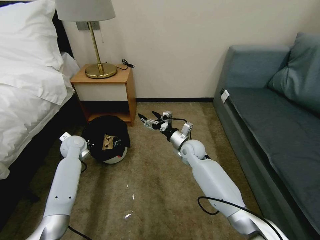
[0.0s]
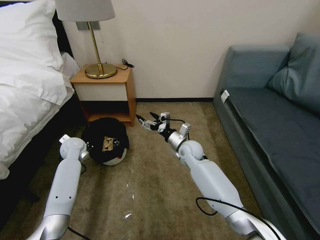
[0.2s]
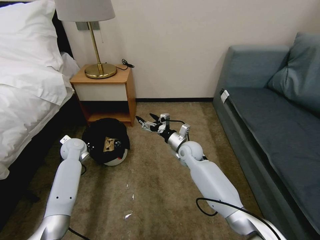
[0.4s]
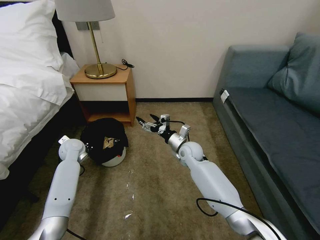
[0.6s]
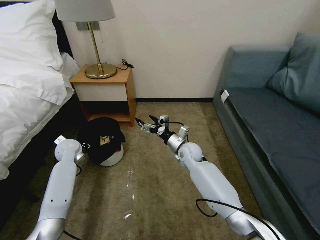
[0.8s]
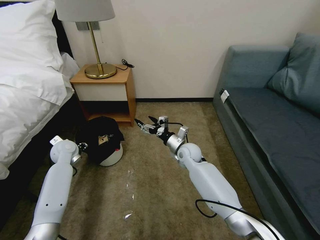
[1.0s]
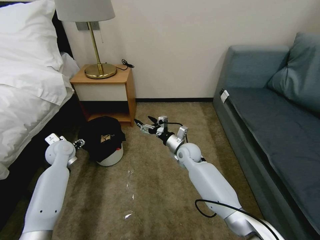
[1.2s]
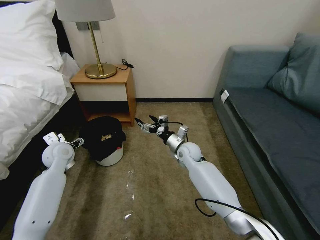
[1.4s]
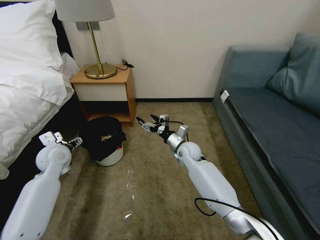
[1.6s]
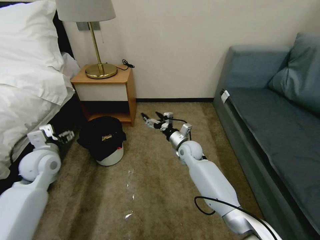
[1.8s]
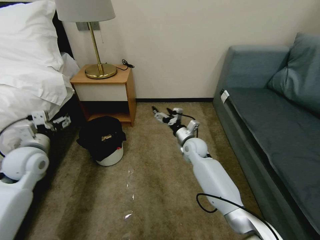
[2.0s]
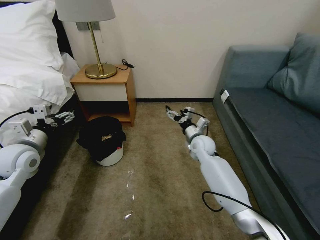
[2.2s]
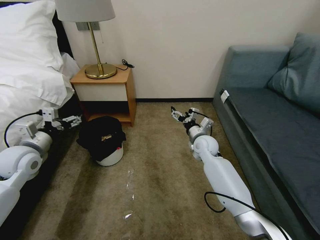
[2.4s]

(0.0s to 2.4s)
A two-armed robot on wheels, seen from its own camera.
Task of the whole recording: Pick up the trash bin, then pick up the garbage on the floor and place it into the trash bin.
0.0s - 1.2s: The left gripper moves roughly 5 cm, and opens.
1.2s - 2.4s: The right gripper goes about 5 cm to the right, while the left gripper goes roughly 15 cm backward and upward.

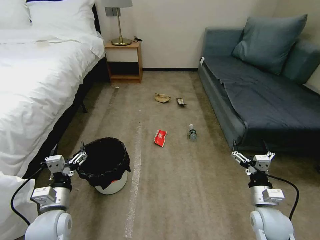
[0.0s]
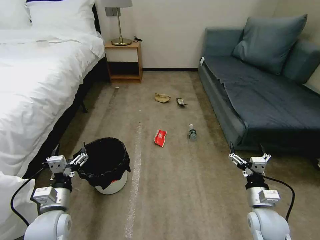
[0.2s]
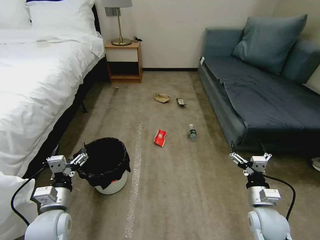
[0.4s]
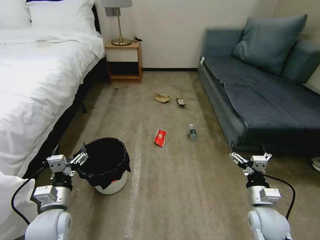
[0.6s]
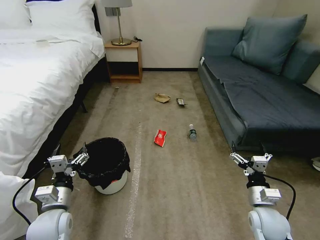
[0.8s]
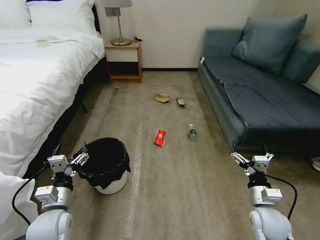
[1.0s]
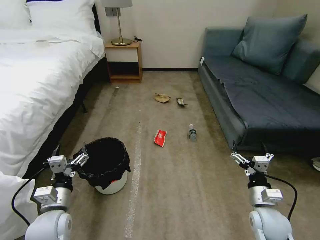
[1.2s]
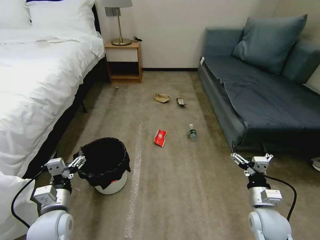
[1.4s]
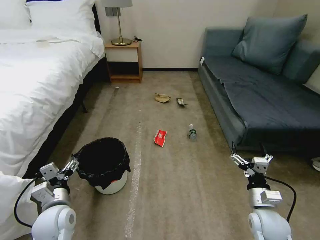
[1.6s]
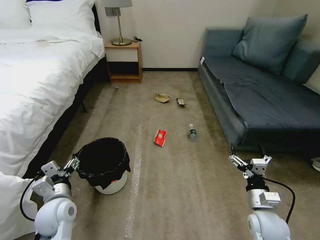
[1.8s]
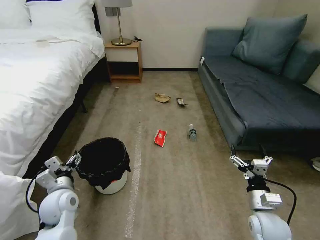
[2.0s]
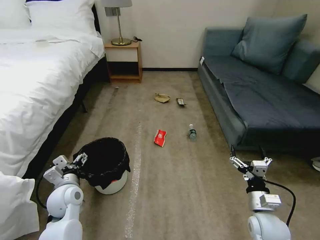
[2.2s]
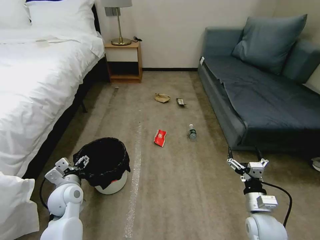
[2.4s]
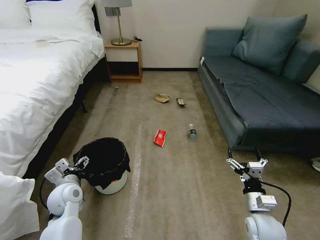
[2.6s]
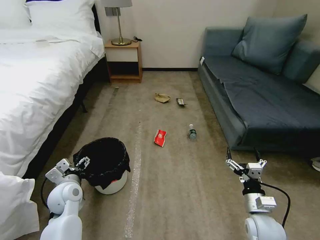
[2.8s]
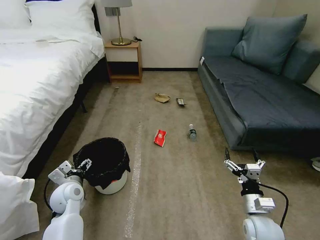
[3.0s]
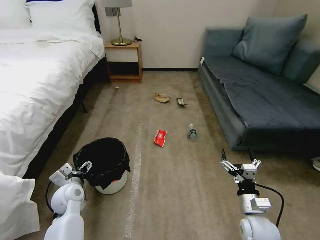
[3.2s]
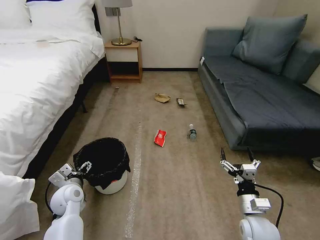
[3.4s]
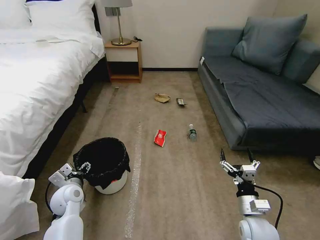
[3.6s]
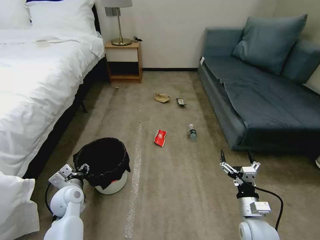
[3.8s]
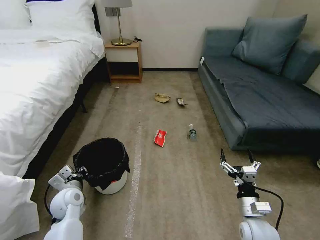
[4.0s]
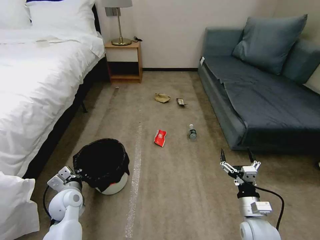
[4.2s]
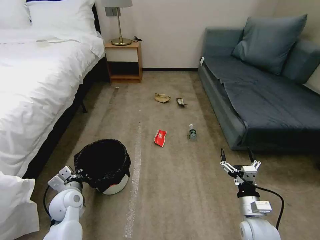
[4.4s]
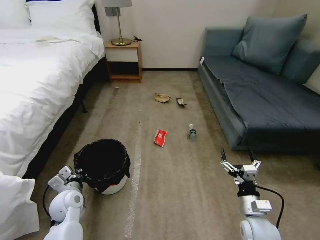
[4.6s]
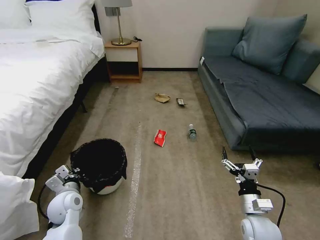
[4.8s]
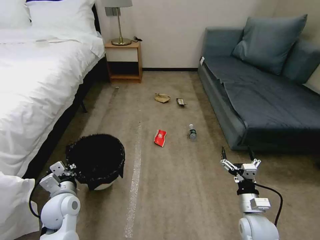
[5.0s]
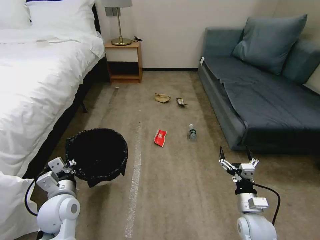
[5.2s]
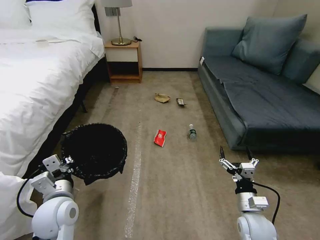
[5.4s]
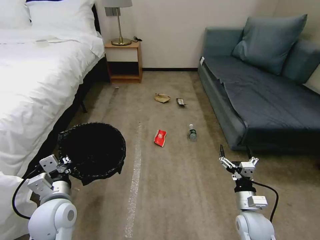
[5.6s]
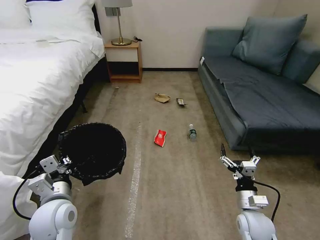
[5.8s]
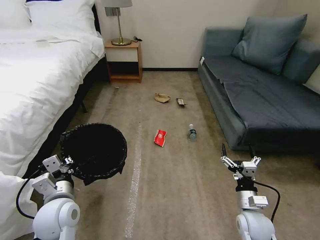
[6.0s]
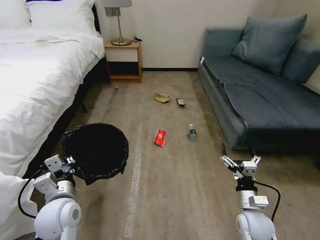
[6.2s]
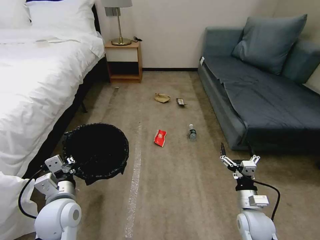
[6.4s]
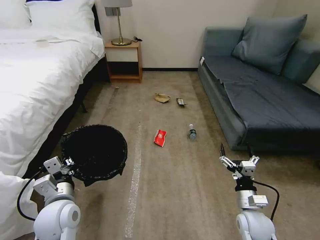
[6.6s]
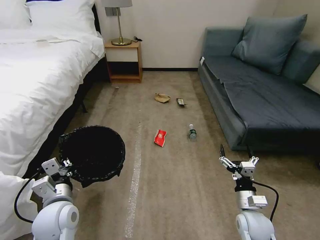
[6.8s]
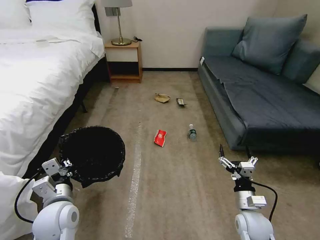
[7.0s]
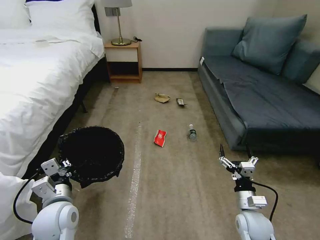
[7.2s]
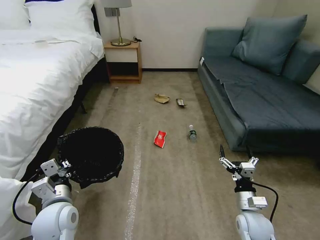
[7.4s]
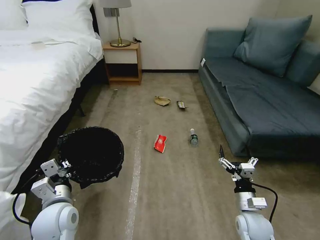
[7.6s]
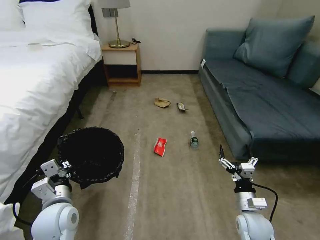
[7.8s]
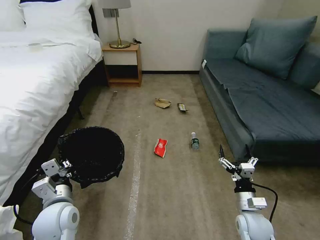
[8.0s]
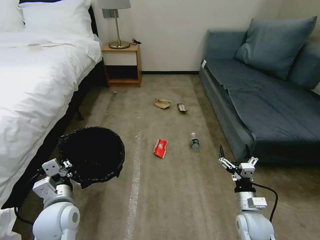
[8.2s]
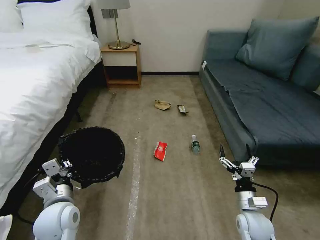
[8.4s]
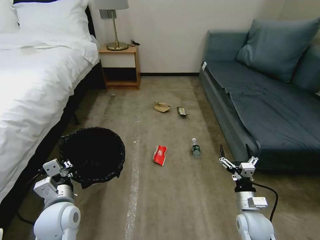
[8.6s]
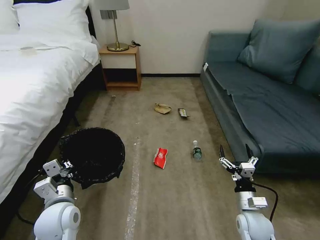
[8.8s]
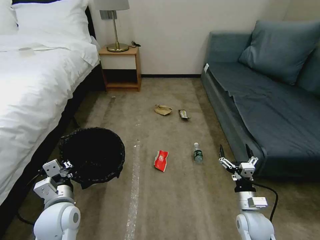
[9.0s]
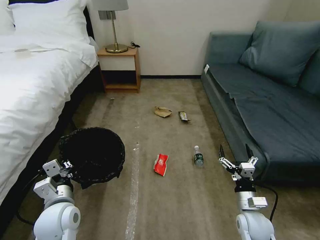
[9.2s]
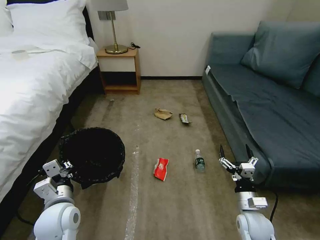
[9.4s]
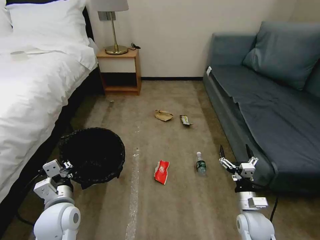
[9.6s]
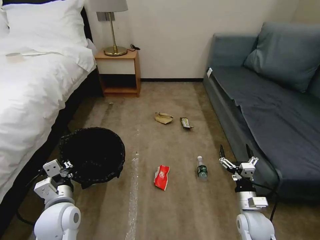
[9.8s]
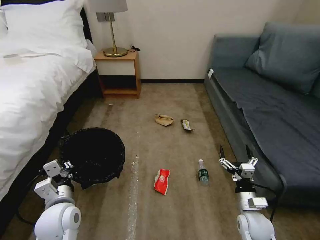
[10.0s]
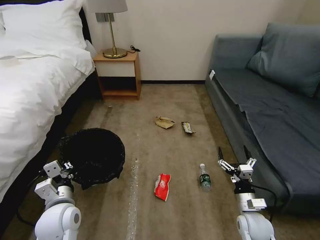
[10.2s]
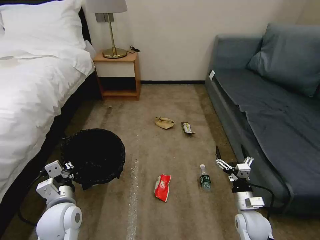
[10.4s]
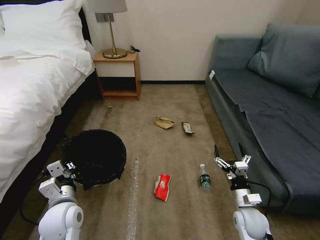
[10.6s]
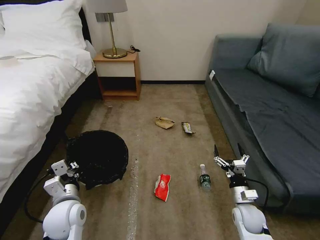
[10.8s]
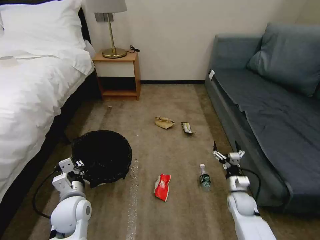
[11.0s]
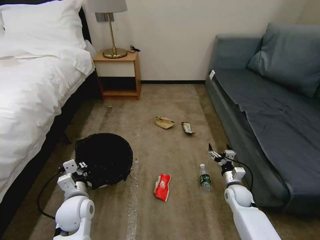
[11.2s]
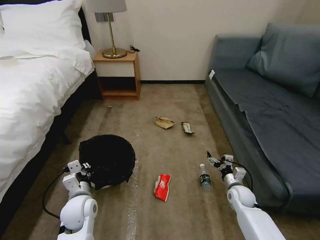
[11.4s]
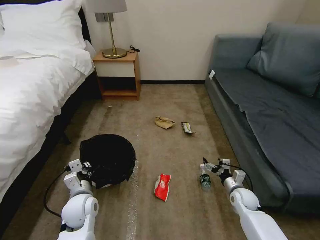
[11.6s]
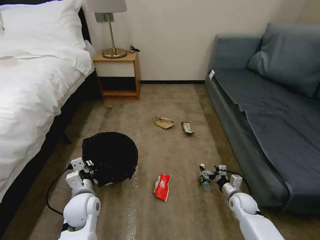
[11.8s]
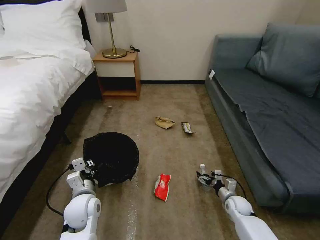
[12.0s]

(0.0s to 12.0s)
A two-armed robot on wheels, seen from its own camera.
Task of the whole recording: Pick up the trash bin, then pick up the garbage on the floor and place it into the trash bin.
1.6s - 3.0s: The left gripper is displaced forward by some 10 cm.
3.0s - 4.4s: The left gripper closes up.
4.4s - 6.0s: The left gripper shifts approximately 10 cm upward and backward.
6.0s - 7.6s: There are only small adjustments of the grippers.
10.4s - 12.0s: The left gripper moves some 5 cm; the right gripper heads downward and forward, covering some 15 cm.

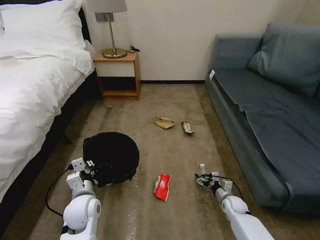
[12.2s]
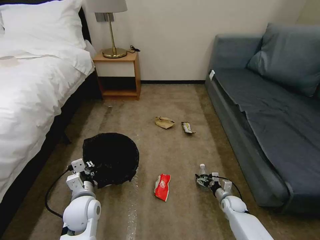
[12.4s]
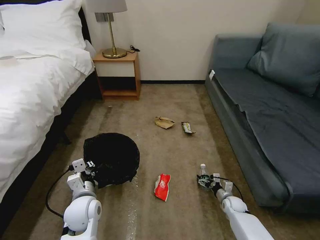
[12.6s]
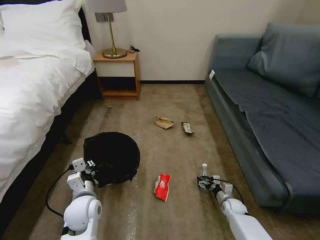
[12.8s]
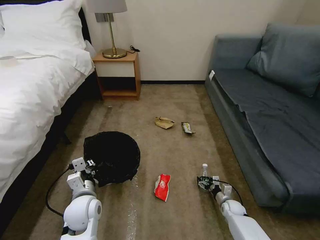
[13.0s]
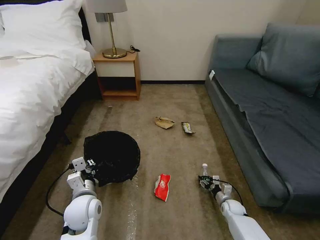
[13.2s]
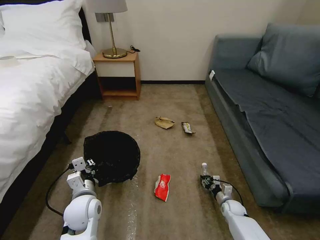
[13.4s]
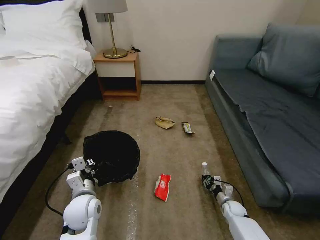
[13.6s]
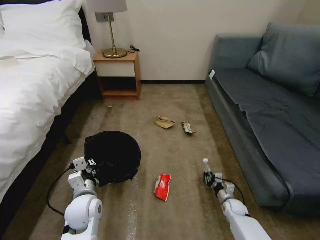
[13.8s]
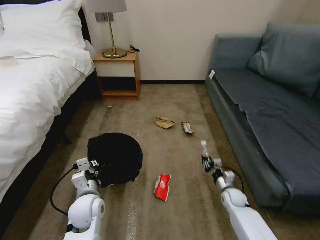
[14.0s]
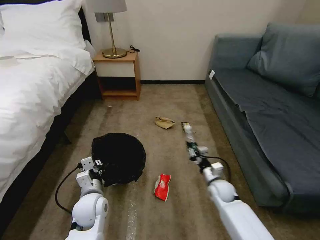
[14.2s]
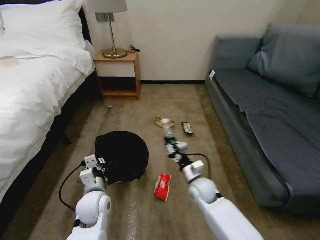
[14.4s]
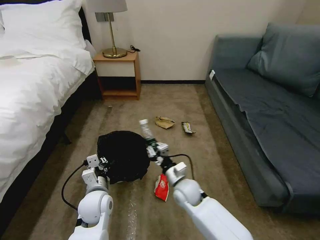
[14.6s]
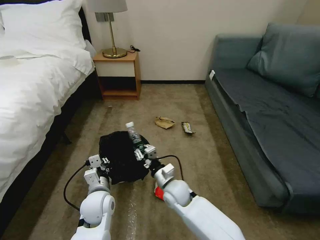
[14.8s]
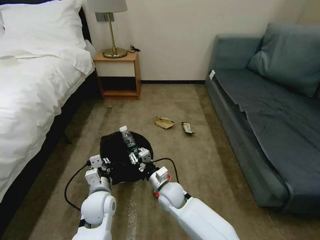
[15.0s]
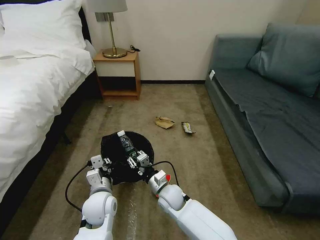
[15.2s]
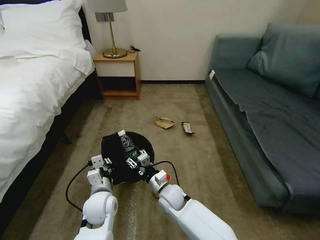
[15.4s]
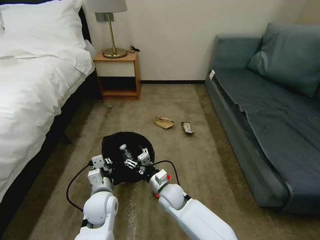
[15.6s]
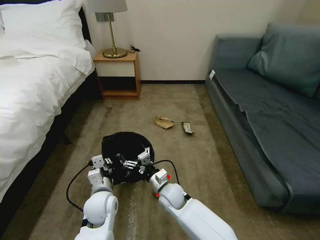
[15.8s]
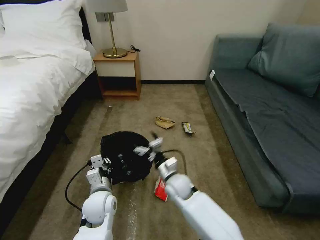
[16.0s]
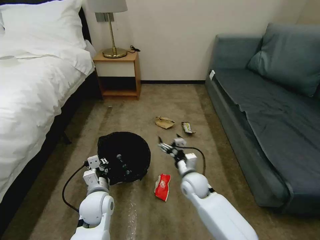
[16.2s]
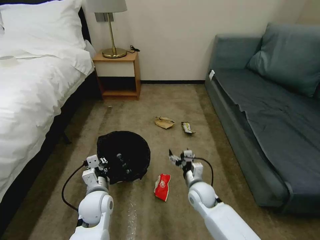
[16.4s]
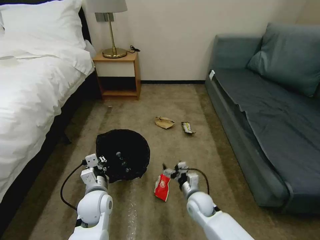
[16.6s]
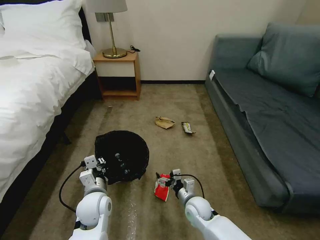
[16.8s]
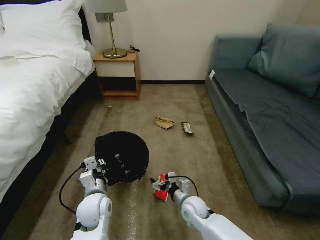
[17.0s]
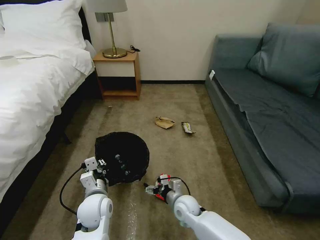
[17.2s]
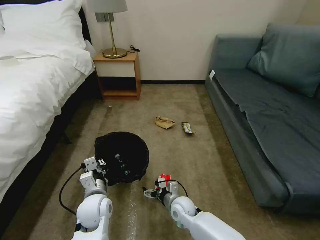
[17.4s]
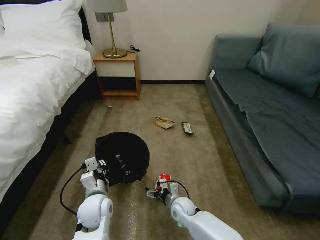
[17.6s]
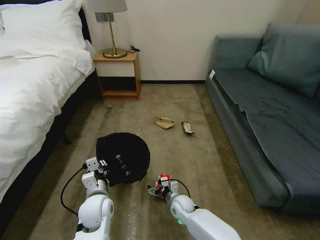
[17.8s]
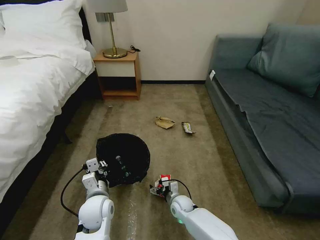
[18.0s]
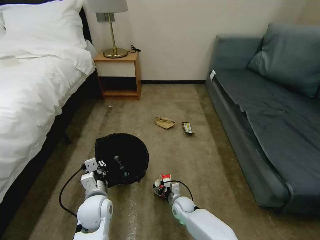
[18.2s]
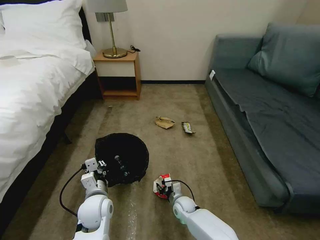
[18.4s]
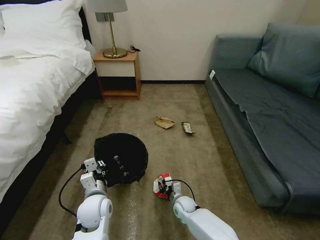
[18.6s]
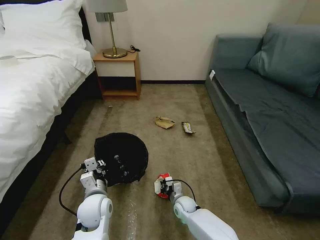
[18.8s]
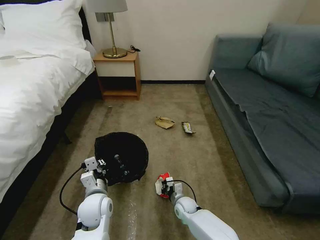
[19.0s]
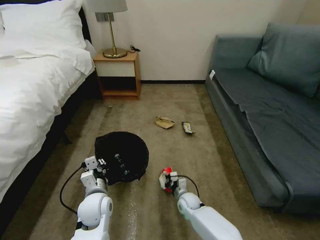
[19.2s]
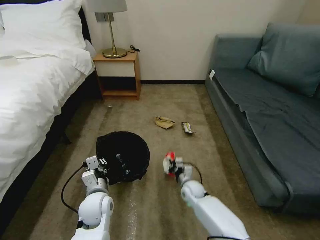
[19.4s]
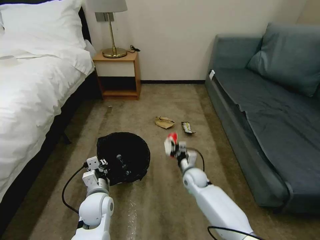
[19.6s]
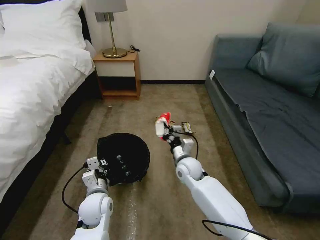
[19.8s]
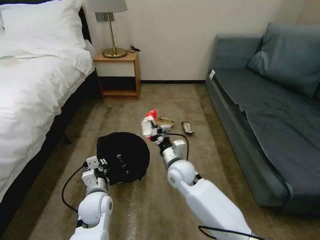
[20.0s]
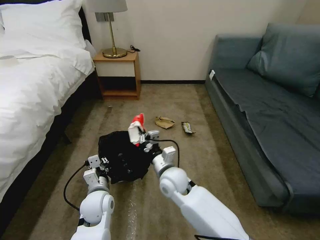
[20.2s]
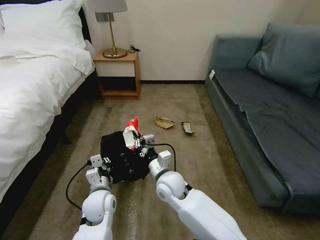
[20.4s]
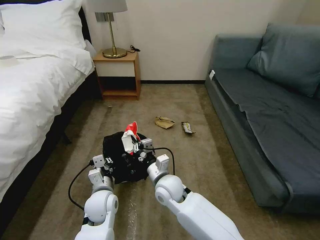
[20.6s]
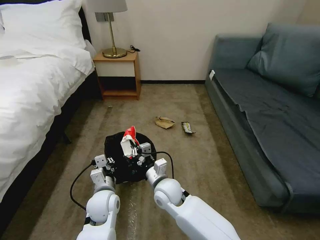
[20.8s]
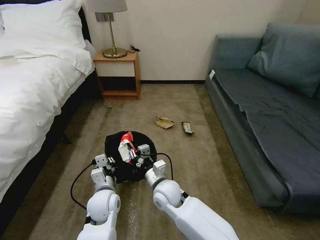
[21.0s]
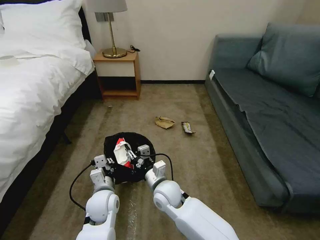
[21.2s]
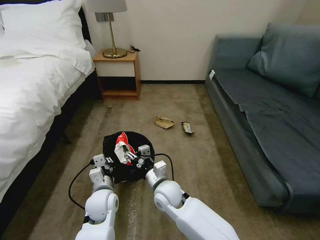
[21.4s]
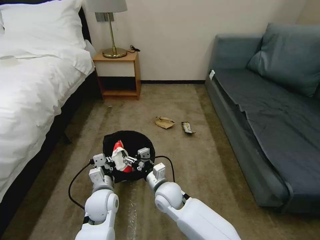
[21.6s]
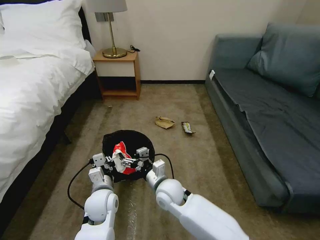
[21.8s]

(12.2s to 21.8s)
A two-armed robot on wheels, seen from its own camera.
Task of the whole recording: Pick up the trash bin, then pick up the garbage on the floor and place it into the trash bin.
12.2s - 13.8s: The right gripper closes up.
13.8s - 15.4s: The right gripper goes about 35 cm to the left and upward.
15.4s - 17.0s: The right gripper goes roughly 10 cm to the right, and opens.
17.0s - 18.6s: The right gripper shifts about 10 cm downward, and closes up.
18.6s - 20.2s: The right gripper heads upward, covering about 25 cm.
20.2s - 21.8s: The right gripper opens up.
